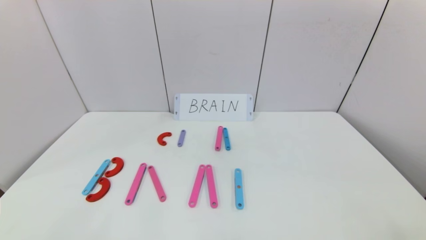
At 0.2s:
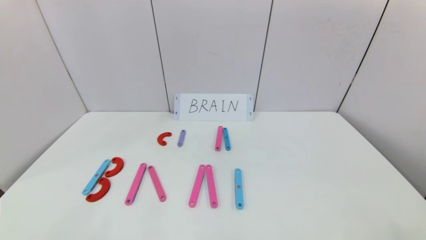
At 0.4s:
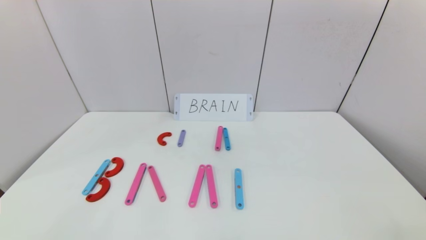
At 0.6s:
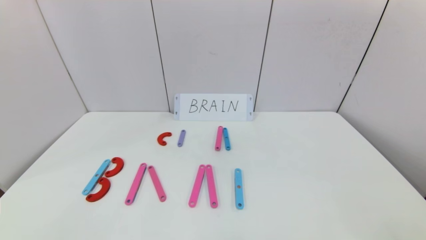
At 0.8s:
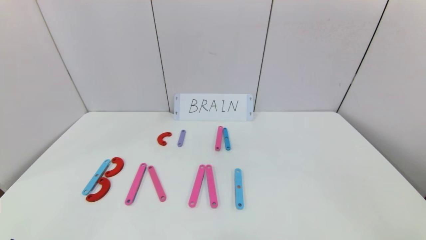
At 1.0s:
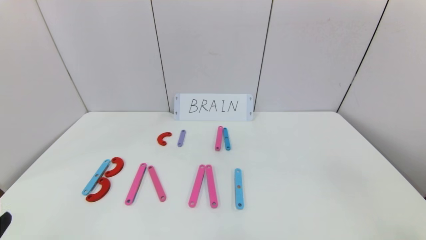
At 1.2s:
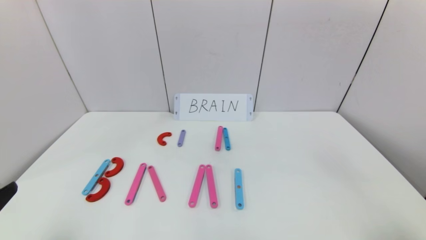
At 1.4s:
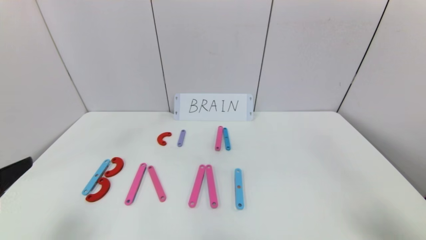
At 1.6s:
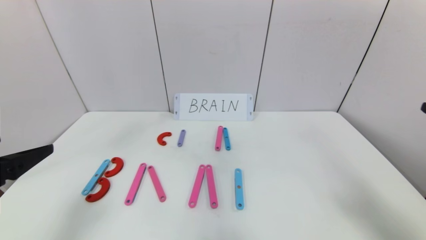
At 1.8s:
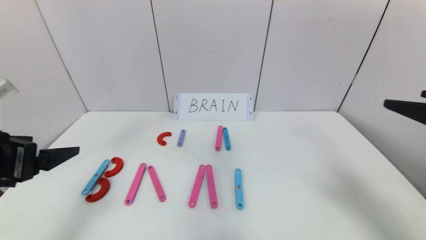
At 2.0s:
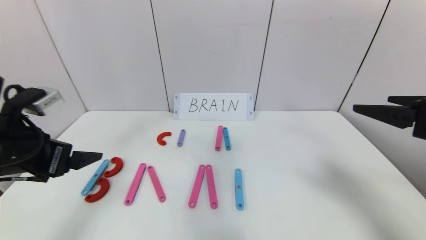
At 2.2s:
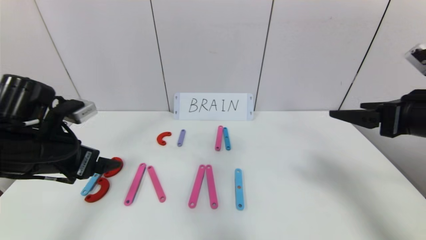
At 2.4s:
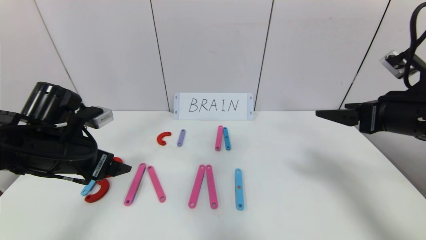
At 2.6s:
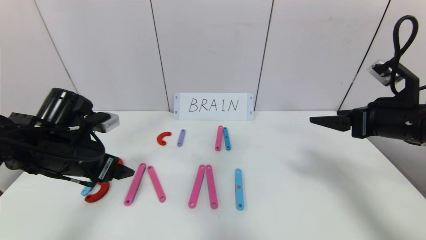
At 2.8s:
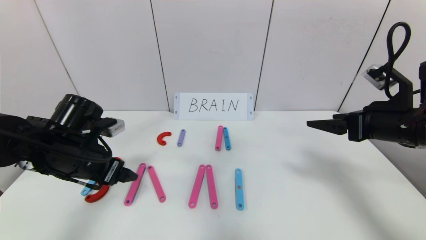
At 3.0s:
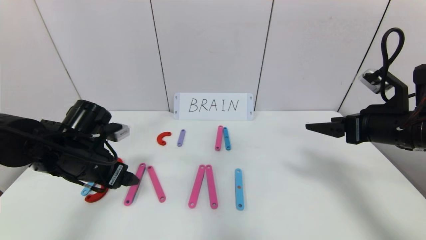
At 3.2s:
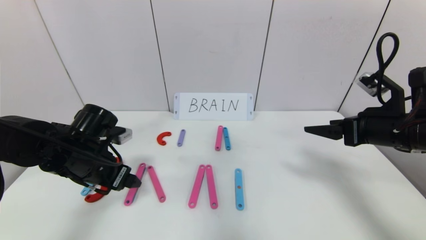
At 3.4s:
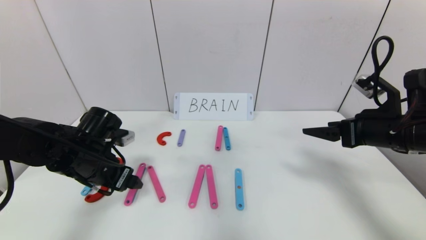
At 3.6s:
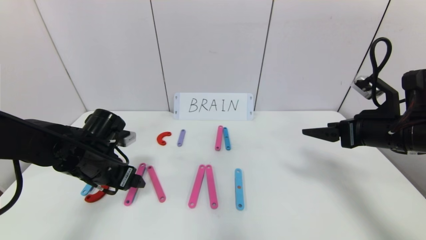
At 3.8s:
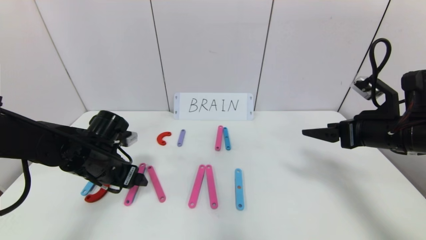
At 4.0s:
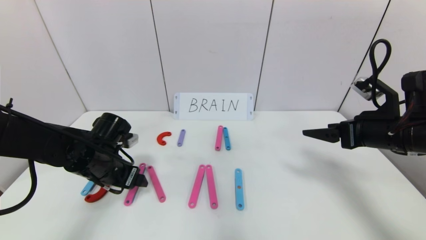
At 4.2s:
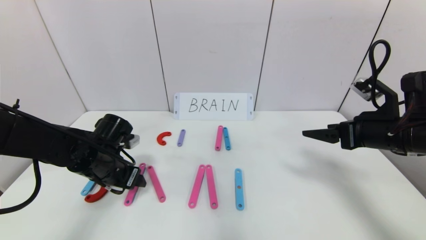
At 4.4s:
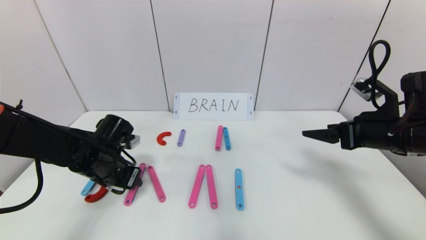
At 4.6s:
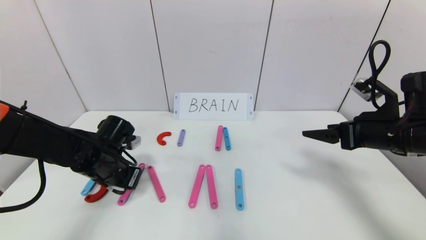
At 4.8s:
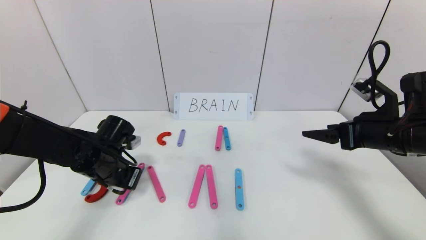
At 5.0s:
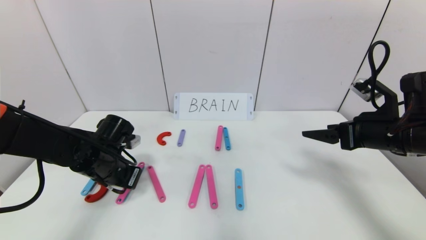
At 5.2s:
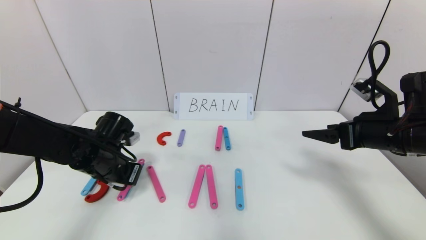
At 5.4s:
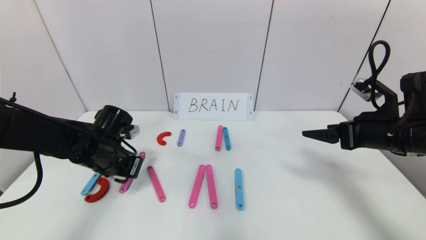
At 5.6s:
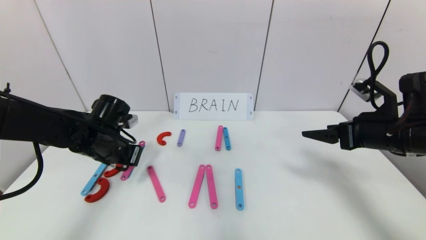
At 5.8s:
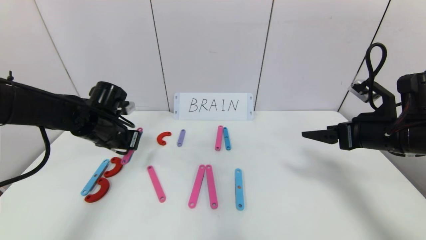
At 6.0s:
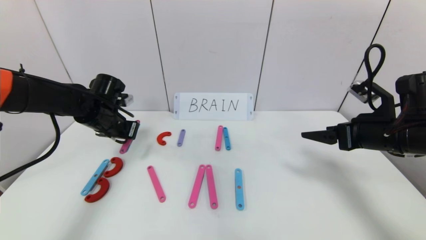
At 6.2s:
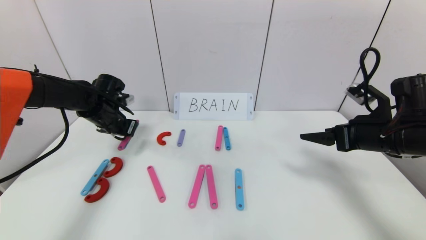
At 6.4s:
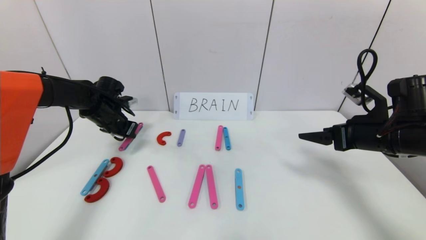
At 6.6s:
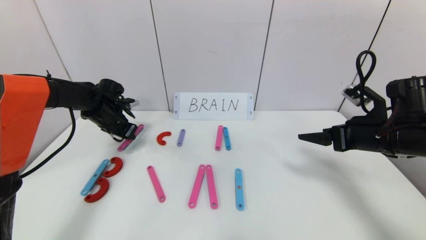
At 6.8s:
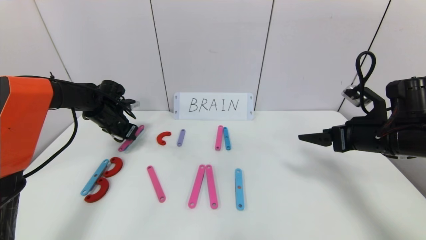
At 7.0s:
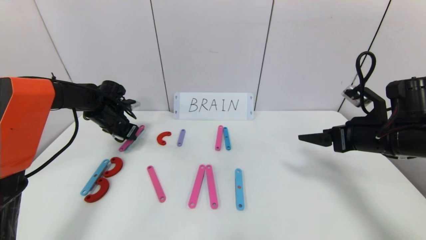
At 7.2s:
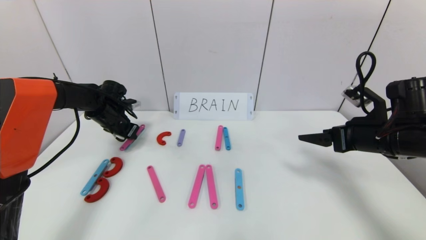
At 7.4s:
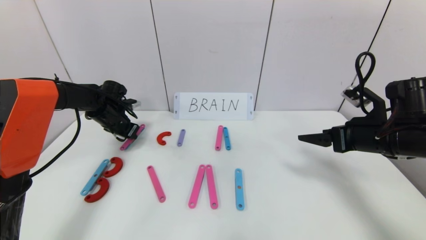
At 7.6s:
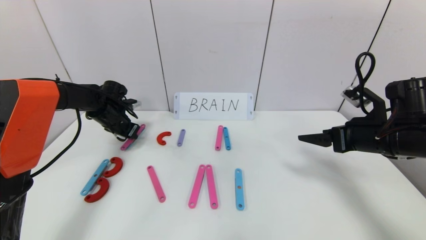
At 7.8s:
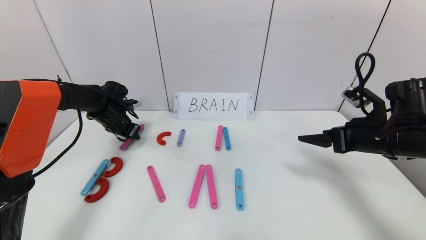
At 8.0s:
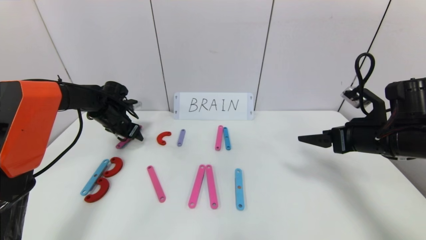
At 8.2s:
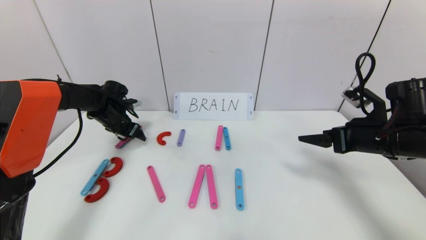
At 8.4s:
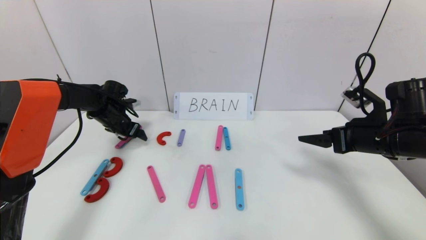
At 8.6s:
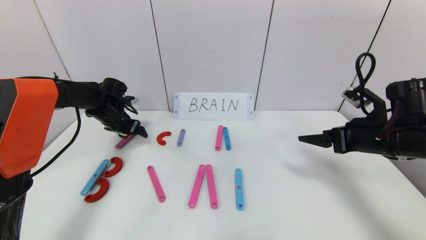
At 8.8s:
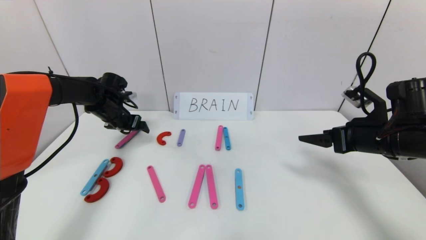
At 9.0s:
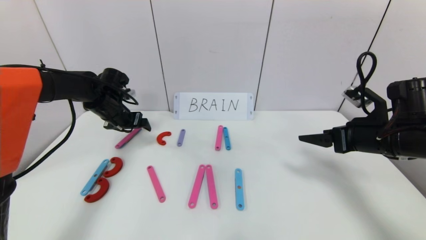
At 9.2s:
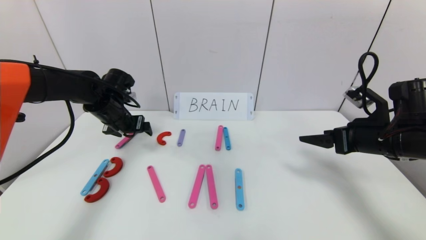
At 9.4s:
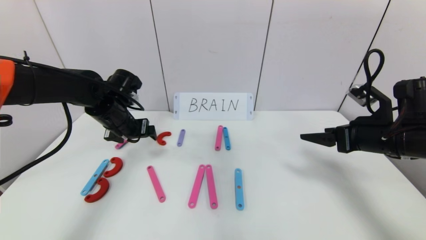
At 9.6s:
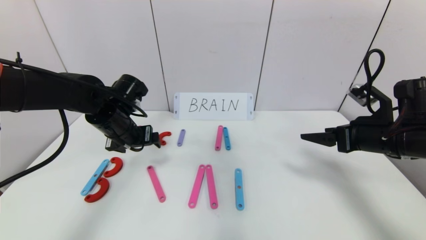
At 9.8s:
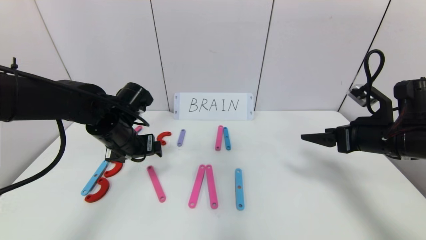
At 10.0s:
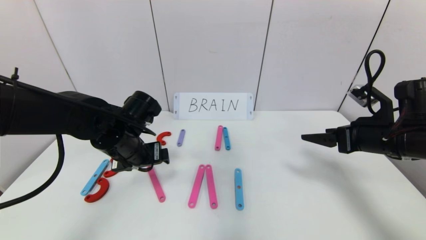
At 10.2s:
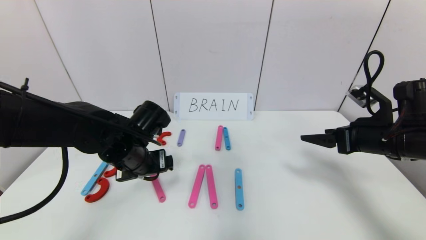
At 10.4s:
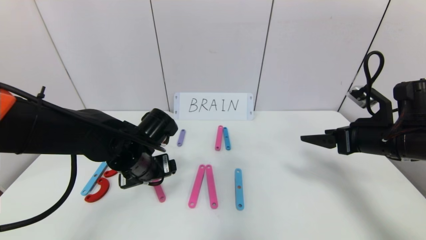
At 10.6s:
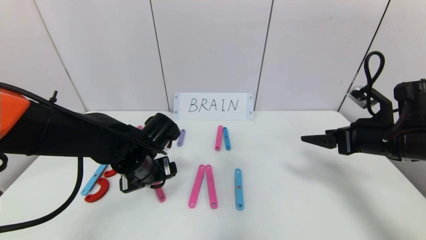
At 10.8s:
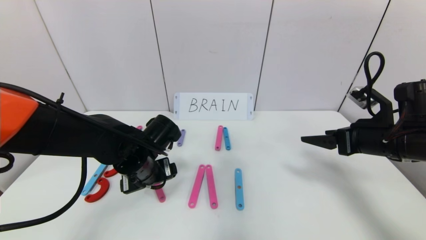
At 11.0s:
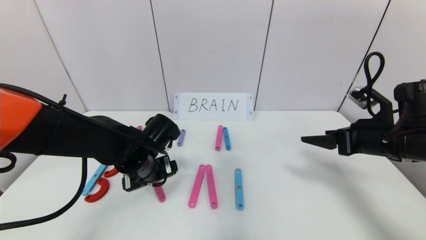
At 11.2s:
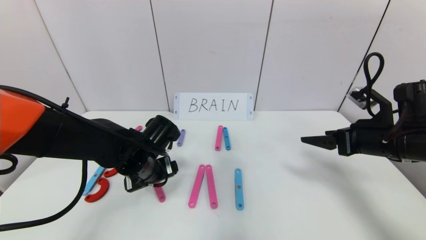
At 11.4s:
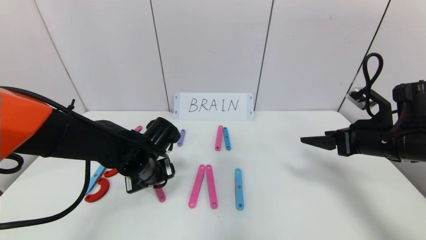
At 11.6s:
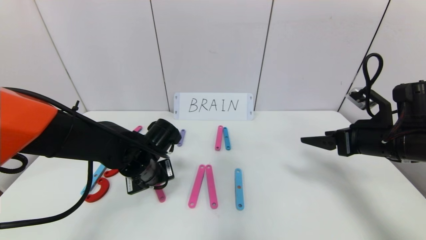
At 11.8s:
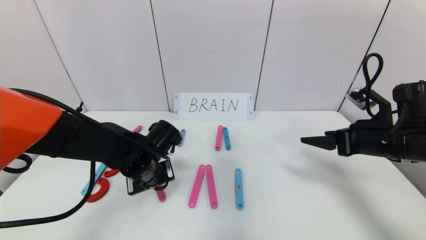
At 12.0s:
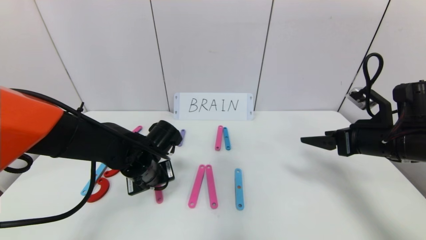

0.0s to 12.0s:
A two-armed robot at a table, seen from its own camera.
Task of the whole recording: rearrange the word baai as brain.
0.0s to 1.6s: Both grippers travel together upward and forward, approximately 25 cm.
1.6s to 3.0s: The two grippers go some 15 cm forward and downward.
3.0s to 4.4s: The left gripper moves approximately 5 cm, and closes its fingers.
4.4s to 6.0s: The left gripper heads forward and upward, covering some 10 cm, and closes.
6.0s to 7.6s: The left gripper heads forward, covering roughly 5 cm.
7.6s to 9.0s: The left gripper ends up some 5 cm from where it was, and opens its fingers.
9.0s to 10.4s: The left gripper travels backward and to the right by roughly 20 cm.
10.4s to 12.0s: The left gripper closes.

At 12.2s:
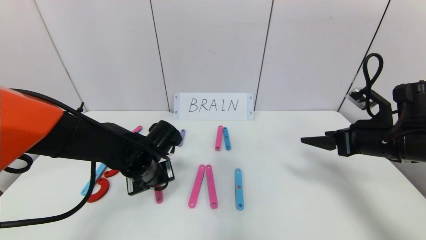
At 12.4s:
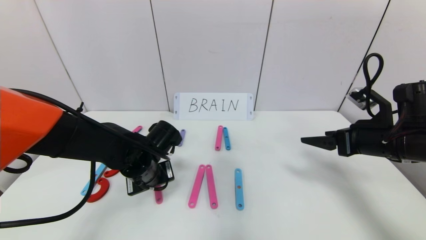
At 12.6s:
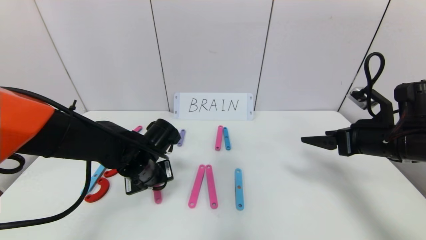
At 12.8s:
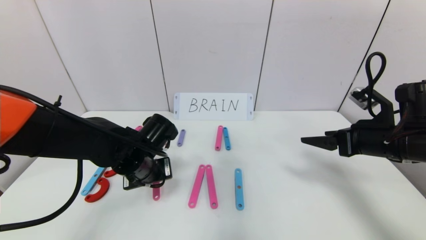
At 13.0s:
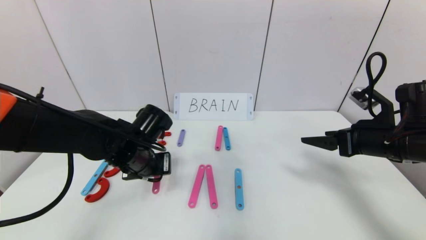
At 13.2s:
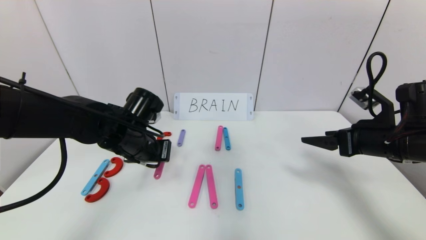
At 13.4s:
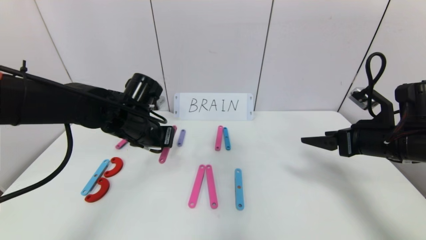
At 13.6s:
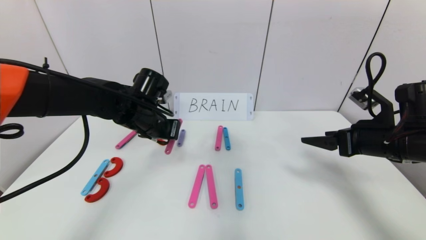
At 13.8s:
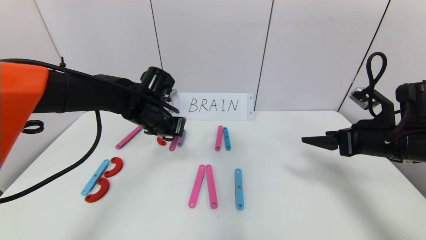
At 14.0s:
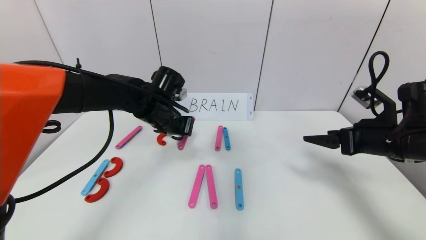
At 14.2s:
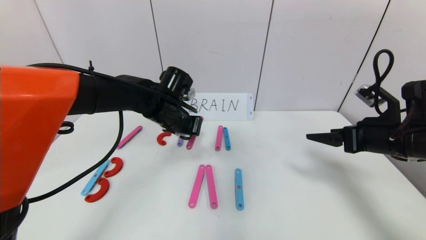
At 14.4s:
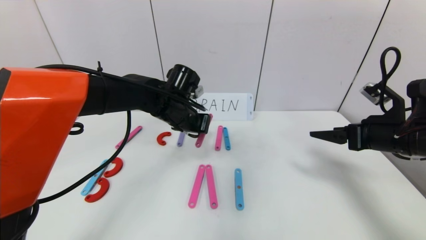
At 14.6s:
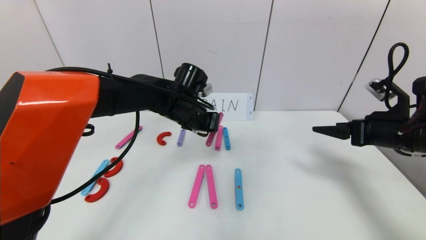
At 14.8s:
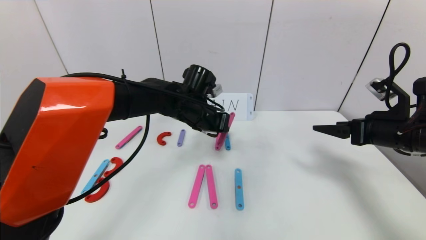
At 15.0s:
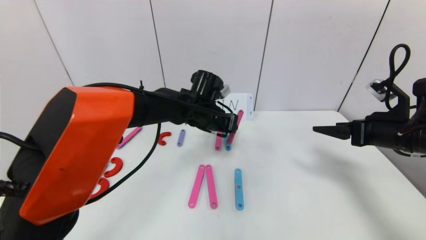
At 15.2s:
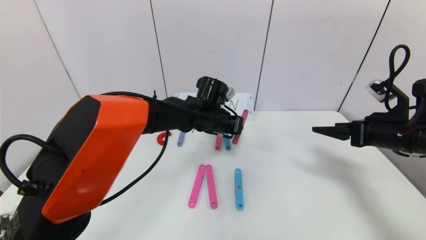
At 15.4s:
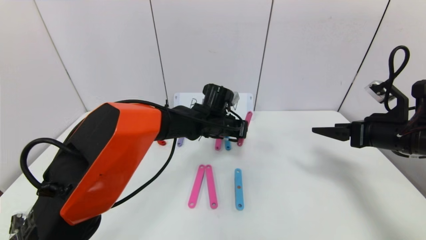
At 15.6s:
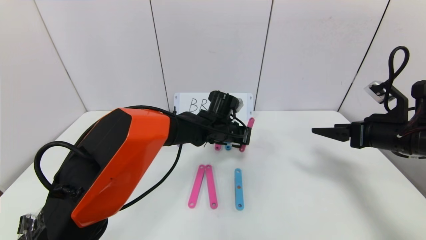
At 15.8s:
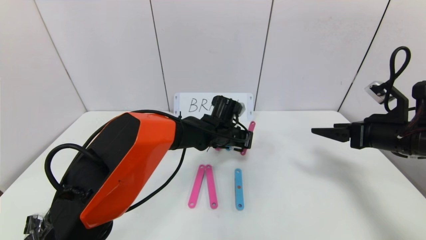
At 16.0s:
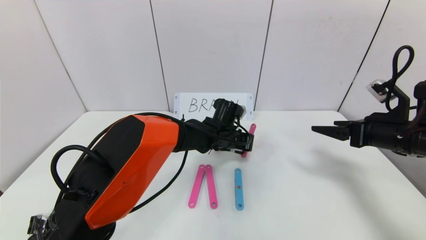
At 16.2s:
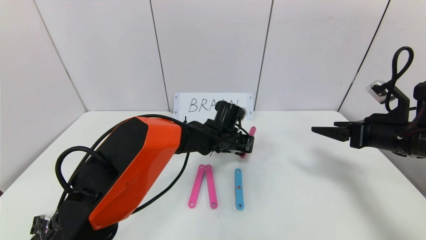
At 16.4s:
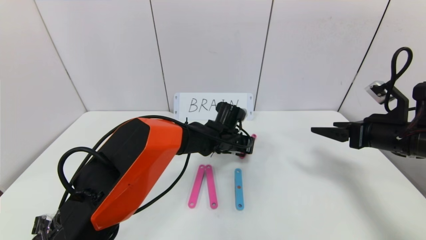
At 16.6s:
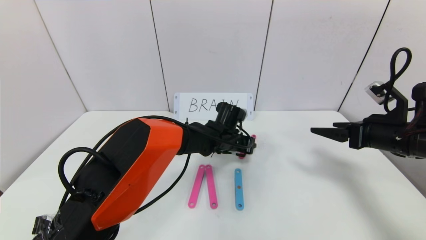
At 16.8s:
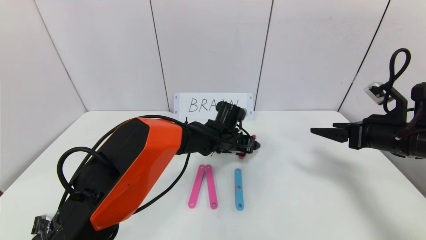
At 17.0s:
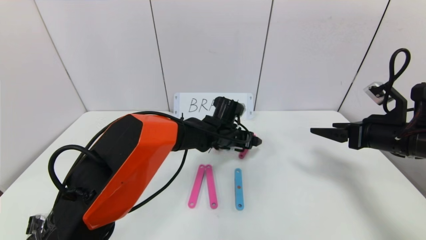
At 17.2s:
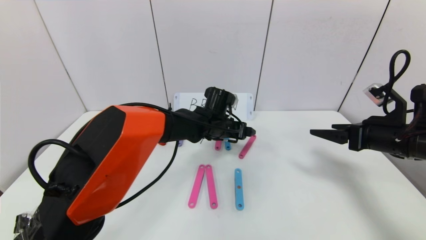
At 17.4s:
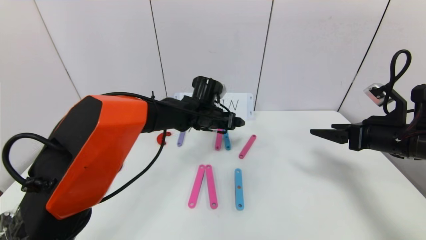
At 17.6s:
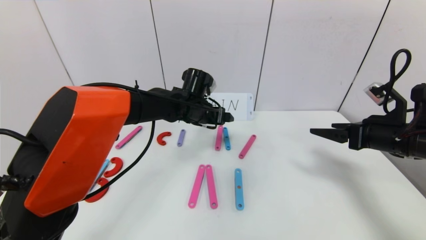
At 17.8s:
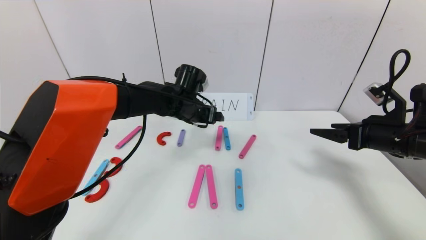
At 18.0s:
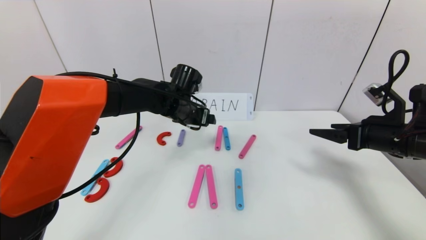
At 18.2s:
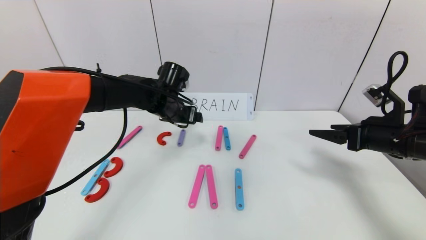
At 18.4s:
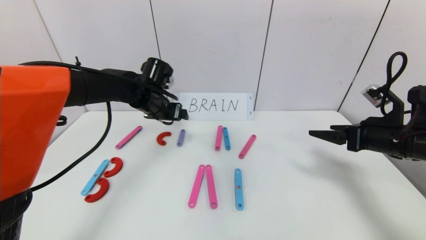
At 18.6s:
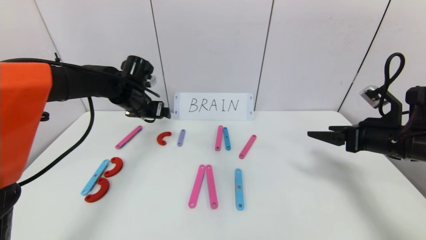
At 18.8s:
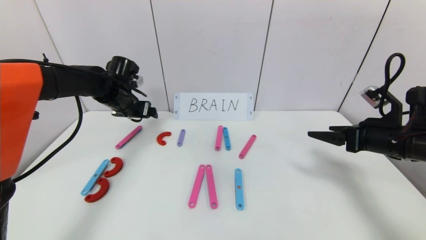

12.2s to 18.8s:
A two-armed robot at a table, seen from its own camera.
Task of the whole recording: rearrange the word baai as brain.
Step, 12.2s to 17.0s: Disassemble the second character A.
12.2s to 13.8s: The left gripper goes about 10 cm upward and forward.
13.8s to 15.4s: The left gripper shifts roughly 15 cm to the right.
15.4s to 17.2s: The left gripper opens up.
17.2s to 18.8s: The left gripper travels to the left by approximately 25 cm.
